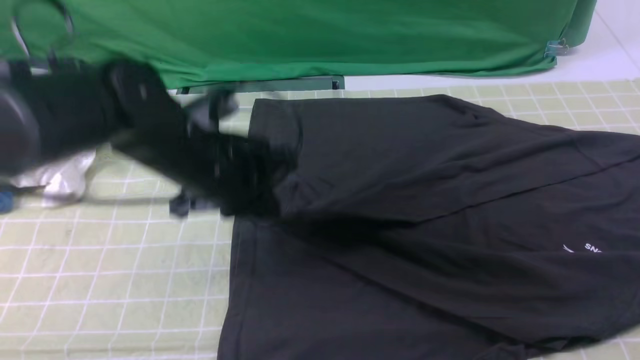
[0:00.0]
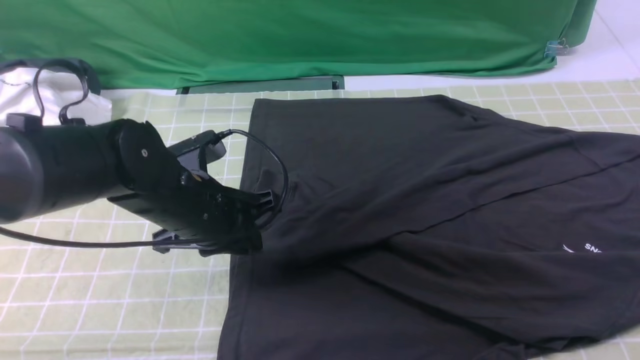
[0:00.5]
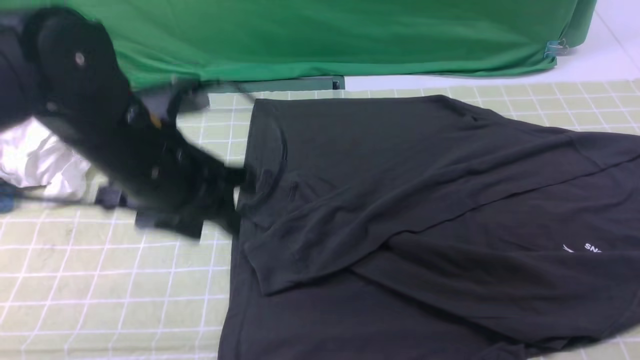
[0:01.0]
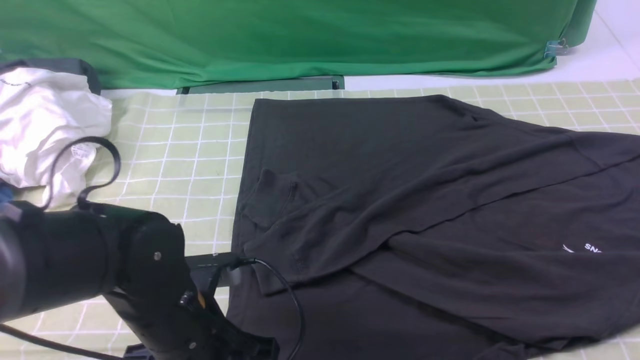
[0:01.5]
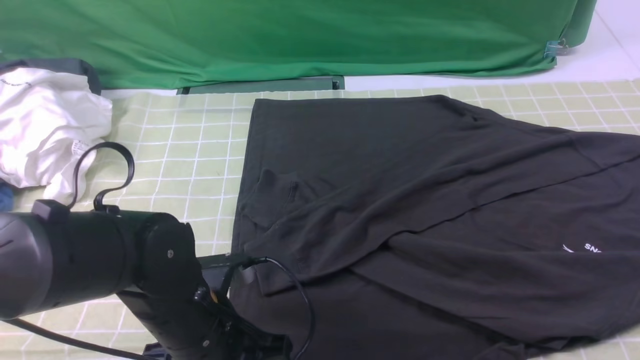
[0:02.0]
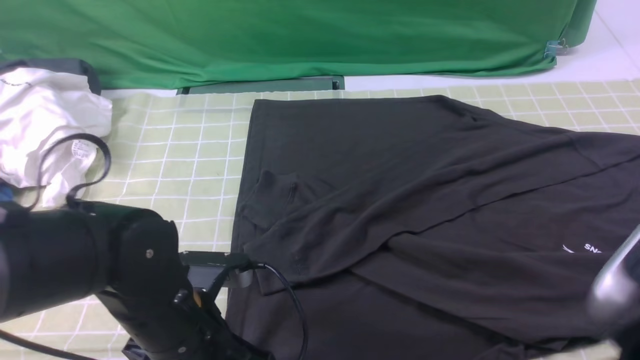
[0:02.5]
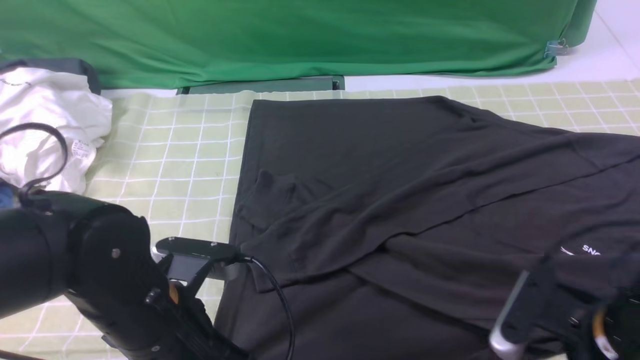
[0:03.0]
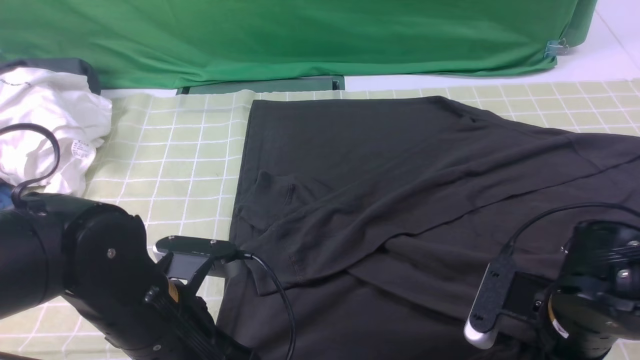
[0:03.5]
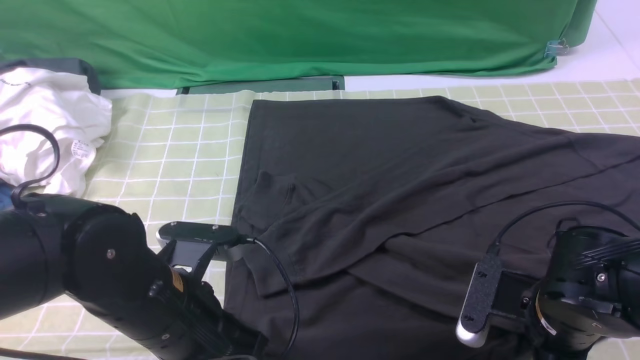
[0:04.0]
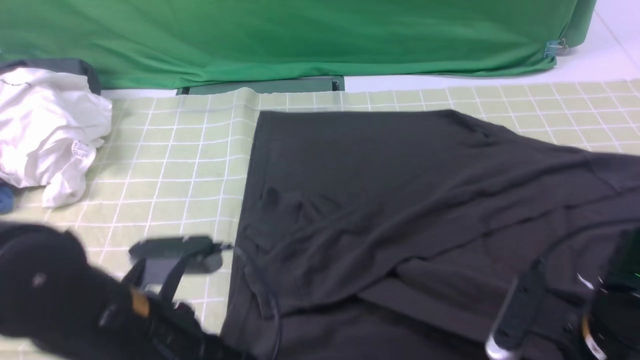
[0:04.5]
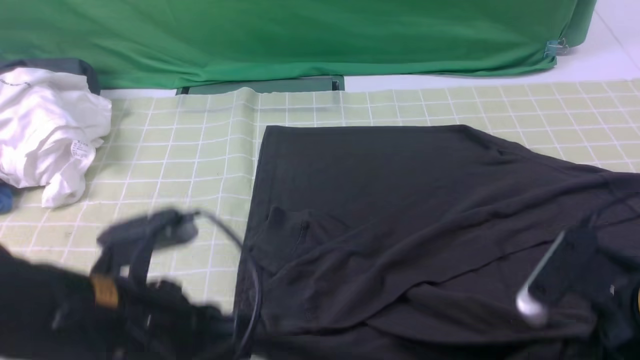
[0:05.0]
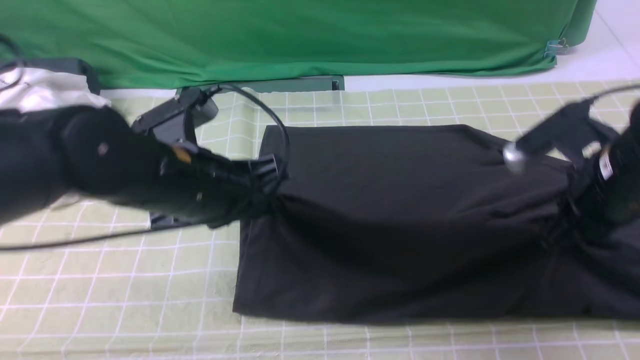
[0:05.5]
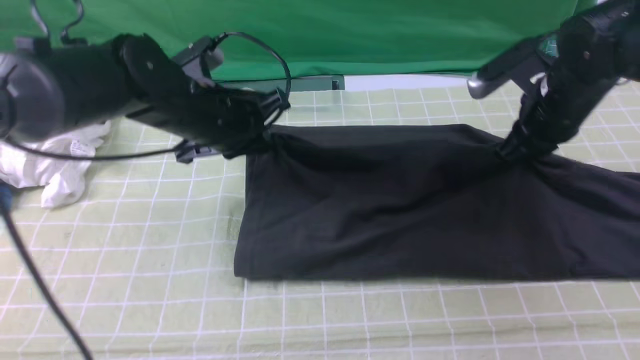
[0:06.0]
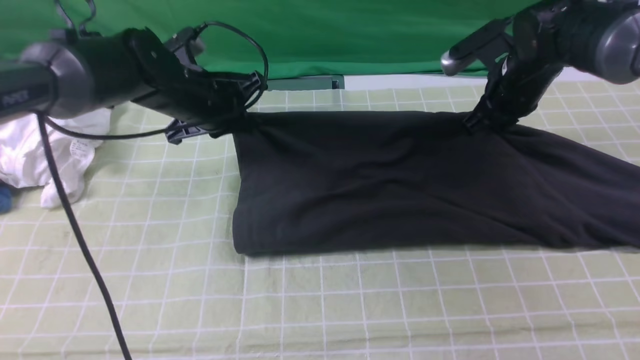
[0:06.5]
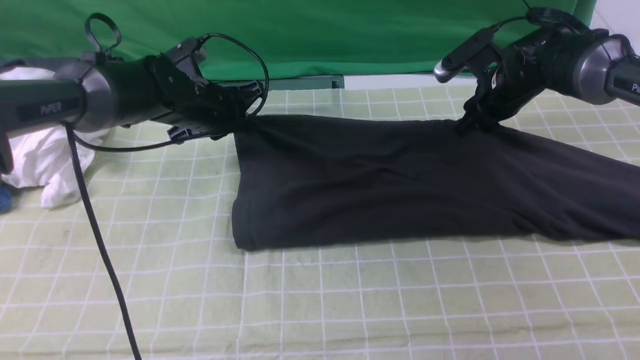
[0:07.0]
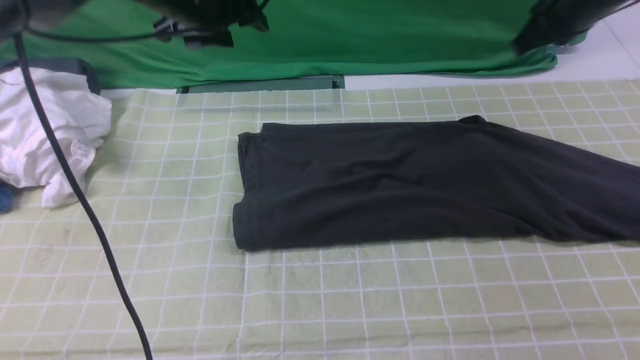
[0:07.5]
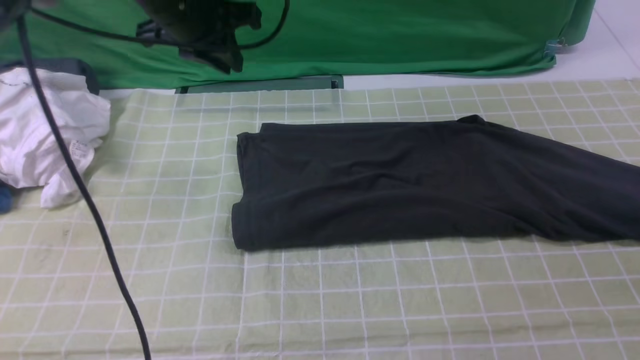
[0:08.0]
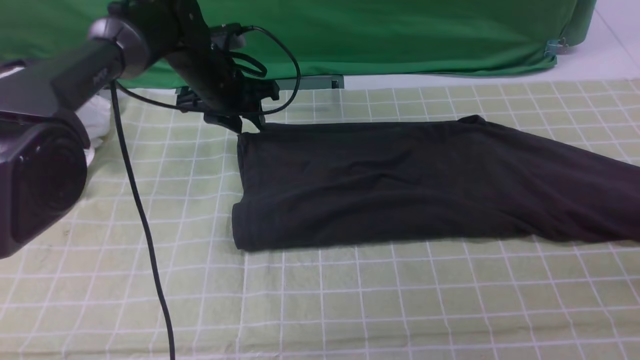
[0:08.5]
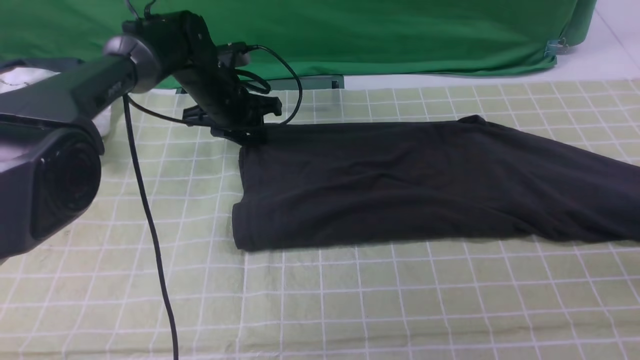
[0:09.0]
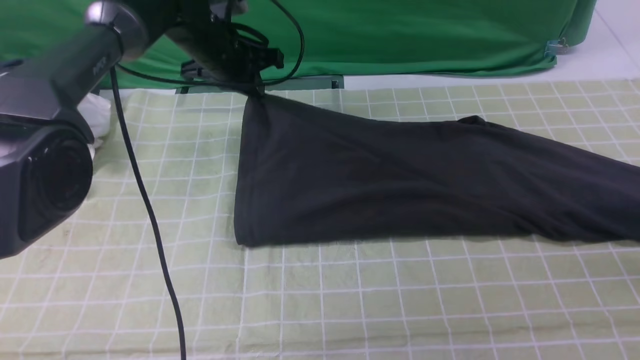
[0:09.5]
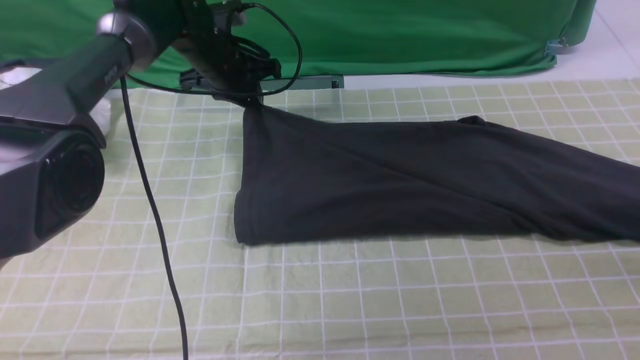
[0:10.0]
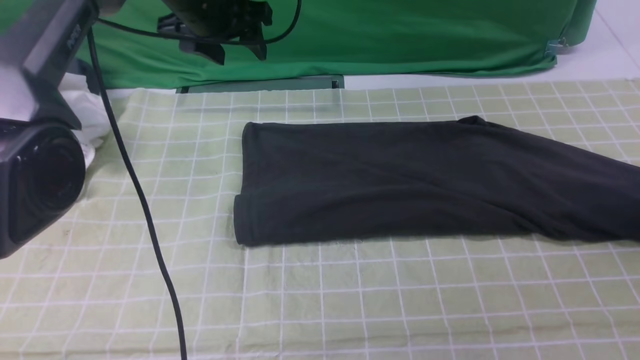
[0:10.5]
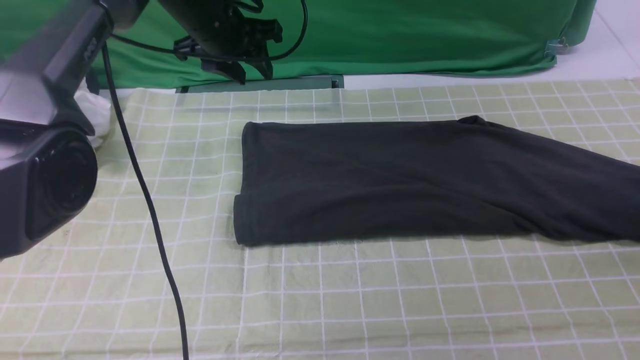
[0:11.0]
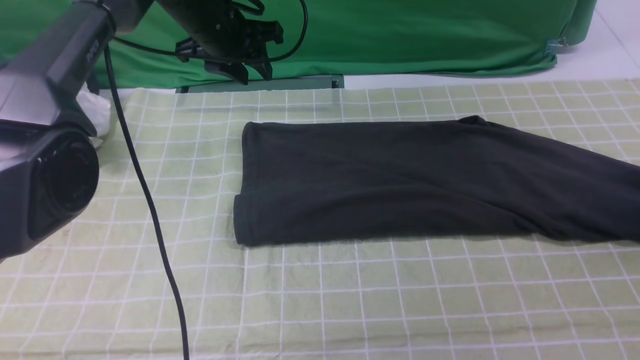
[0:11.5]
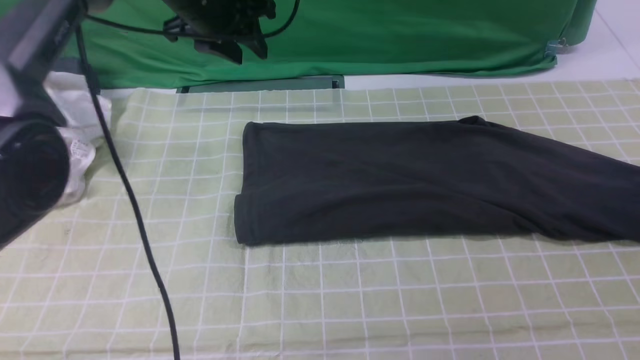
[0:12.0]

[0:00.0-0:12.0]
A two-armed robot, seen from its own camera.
Step, 0:01.0 to 0:04.0: use both arms simultaneously to clamp the lower edge of the clothing fabric.
Step, 0:04.5 to 0:07.0: use both arms to drag the lower edge of the fabric forward and fold it over the upper edge.
0:00.0 to 0:02.0: The left gripper travels backward and downward by about 15 cm, and opens, then closes again.
0:02.0 to 0:04.0: The right gripper is displaced downward and to the left by approximately 25 cm, and opens and closes again.
0:04.0 to 0:06.0: The left gripper travels forward by approximately 20 cm. The right gripper shifts some 20 cm forward and upward.
0:06.0 to 0:08.0: The left gripper moves forward and upward, roughly 10 cm, and opens, then closes again. Meanwhile the right gripper moves to the right and upward, roughly 20 cm, and opens, then closes once more.
0:08.0 to 0:10.0: The left gripper heads downward and forward, covering some 10 cm, while the right gripper moves downward, some 5 cm.
0:10.0 to 0:12.0: The left gripper travels upward by approximately 5 cm. Meanwhile the right gripper moves downward, to the right and forward, approximately 10 cm.

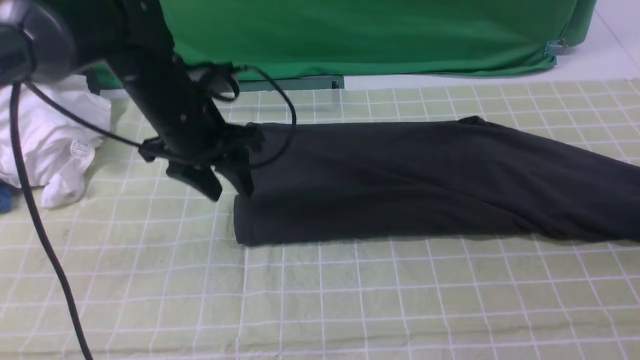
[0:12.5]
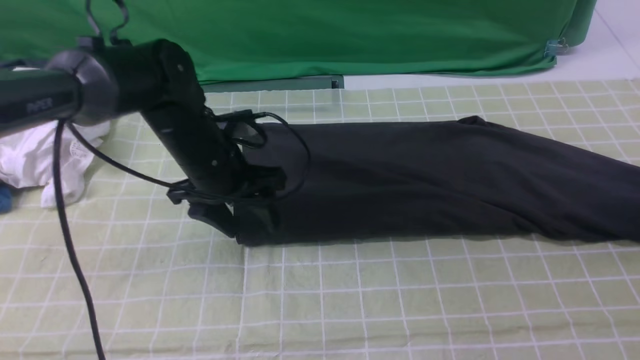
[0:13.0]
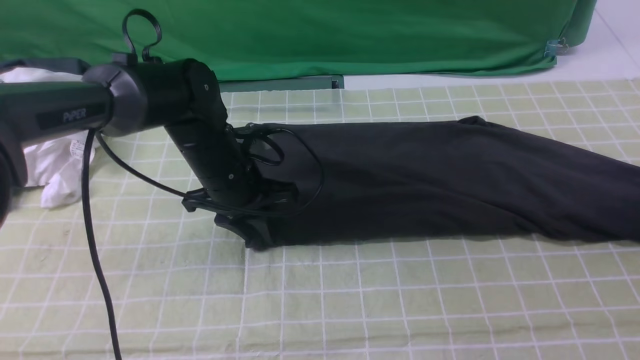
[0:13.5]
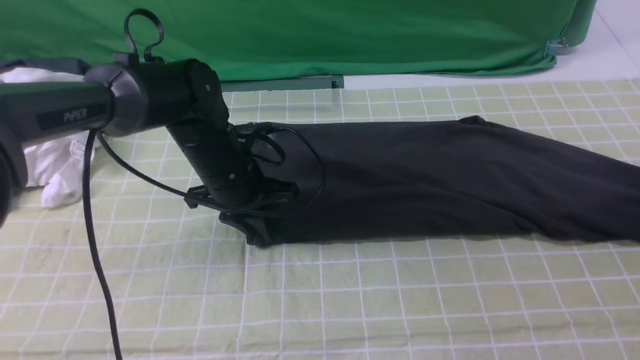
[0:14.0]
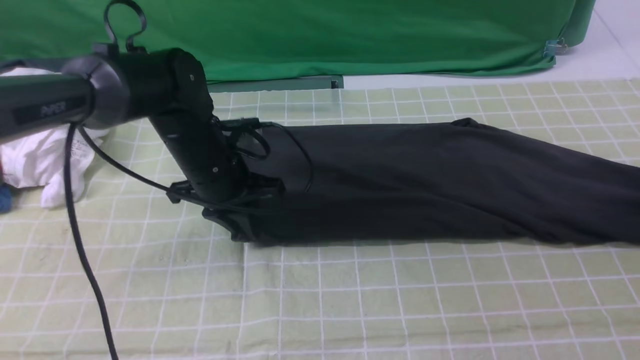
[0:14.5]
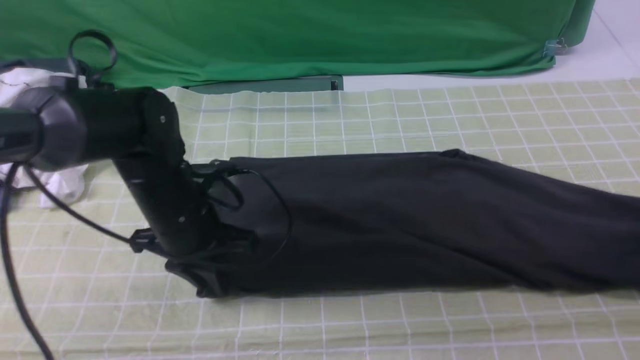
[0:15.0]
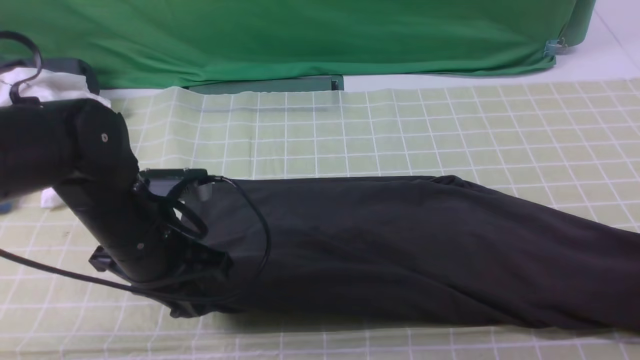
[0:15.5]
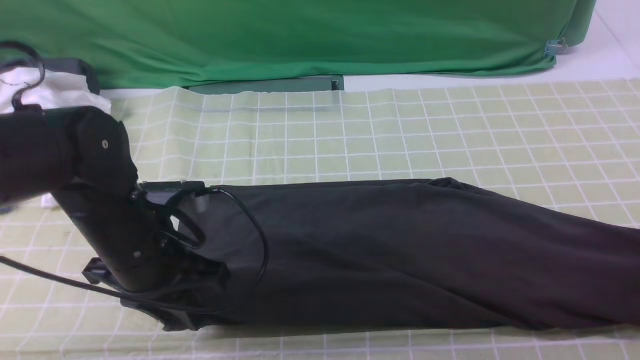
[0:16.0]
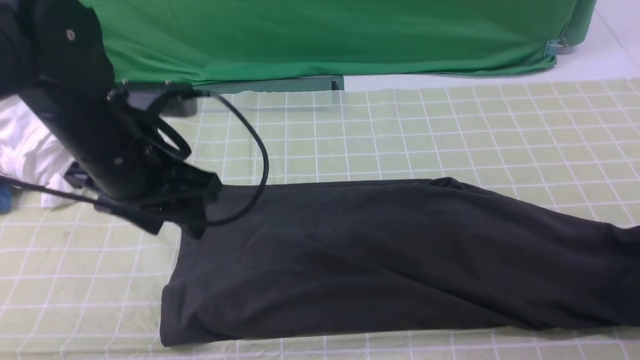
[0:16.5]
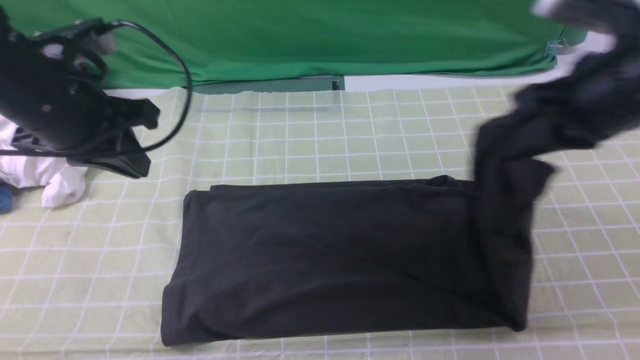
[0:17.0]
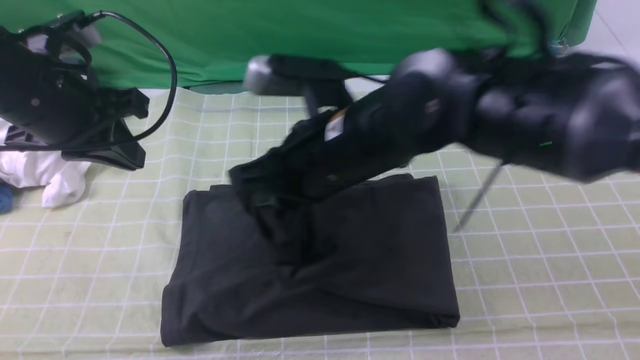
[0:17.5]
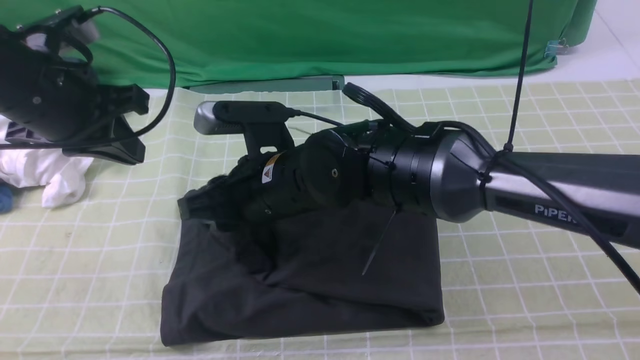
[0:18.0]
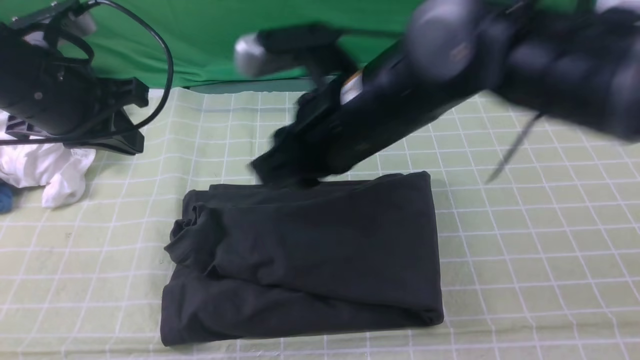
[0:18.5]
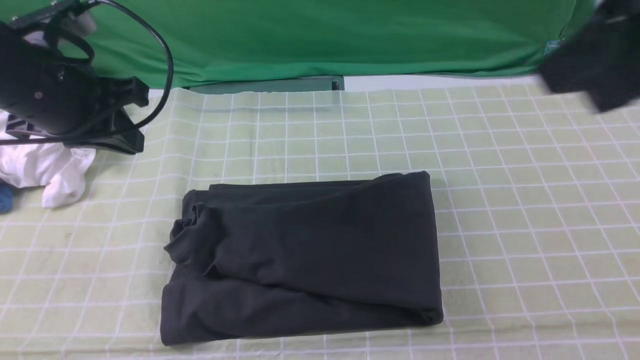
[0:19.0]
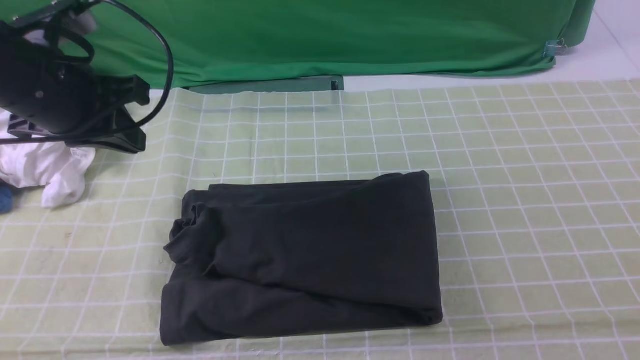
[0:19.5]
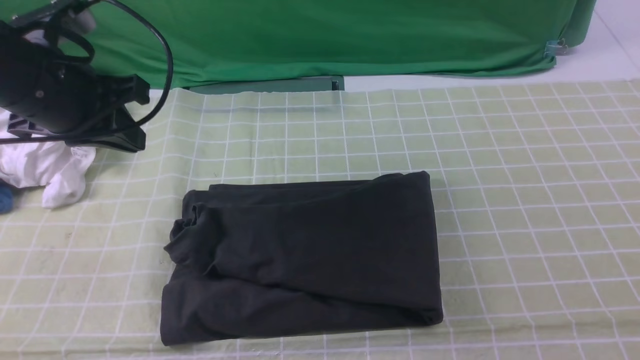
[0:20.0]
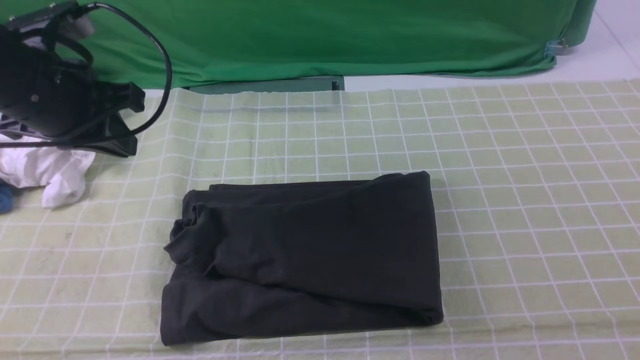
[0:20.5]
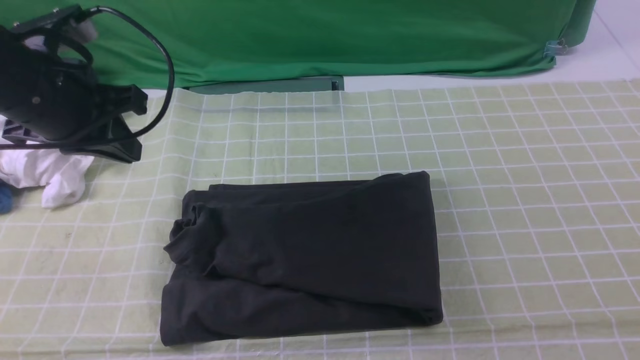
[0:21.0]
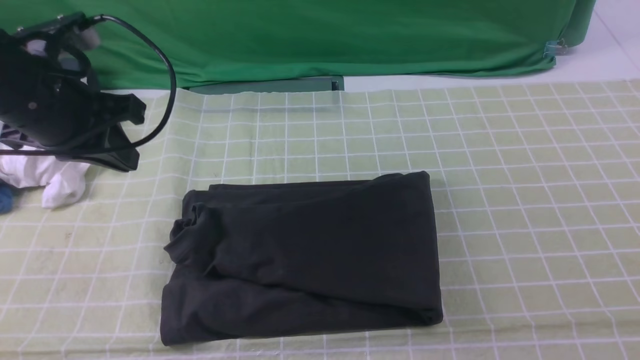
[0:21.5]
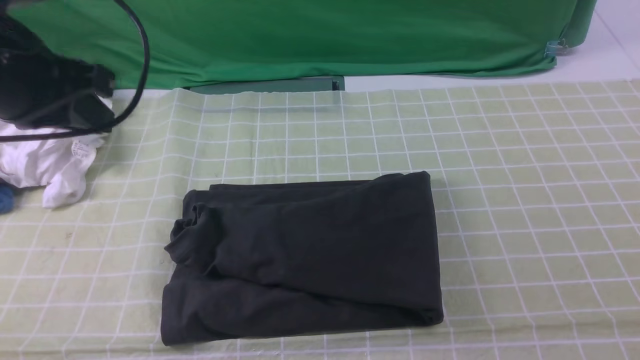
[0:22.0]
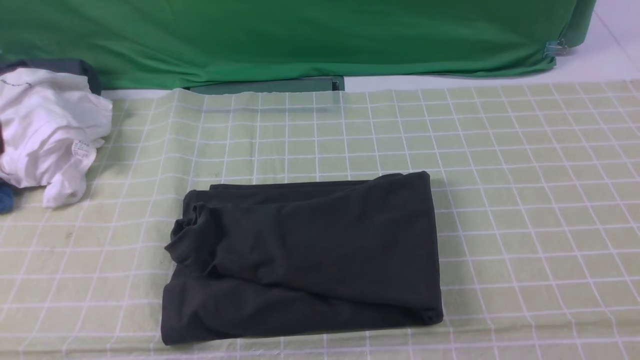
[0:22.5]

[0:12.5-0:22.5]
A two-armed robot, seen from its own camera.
Step, 0:12.5 to 0:16.0: use the right arm to clamp the right edge of the fabric.
Step, 0:16.5 to 0:18.0: use the right arm to drag the right edge of the fabric to the left and folds it over the left edge.
0:12.5 to 0:14.5: The left gripper is displaced downward by roughly 5 cm, and closes its fingers. The right gripper closes.
0:14.5 to 0:16.5: The left gripper travels upward and backward by approximately 15 cm, and opens up. The right gripper moves backward, to the left and upward, roughly 15 cm.
0:16.5 to 0:18.5: The right gripper goes some 35 cm to the left; the left gripper is displaced to the left by roughly 5 cm, and closes up.
0:18.5 to 0:20.5: The right gripper heads to the right and backward, covering some 35 cm.
0:20.5 to 0:22.5: The left gripper is displaced backward by about 25 cm.
